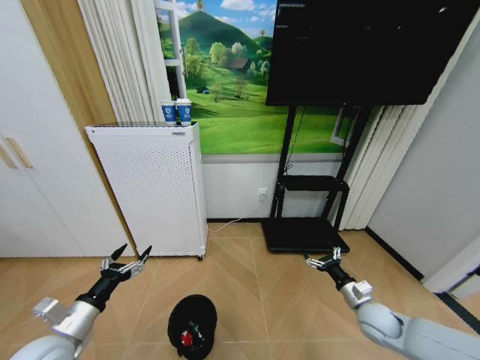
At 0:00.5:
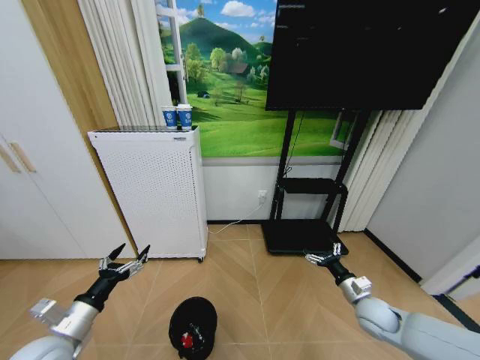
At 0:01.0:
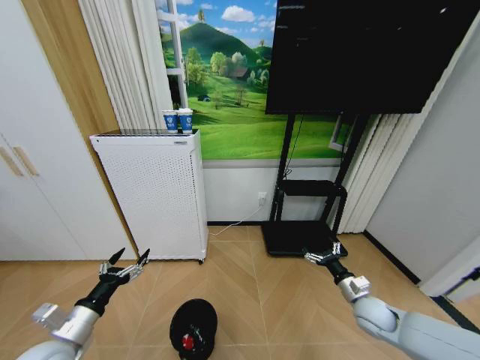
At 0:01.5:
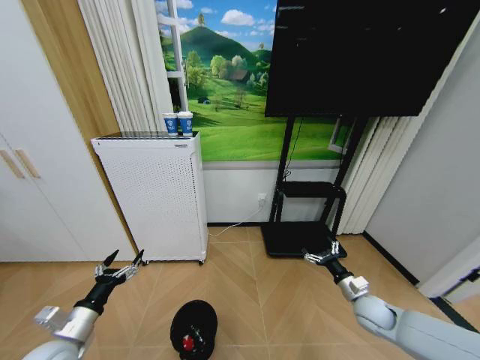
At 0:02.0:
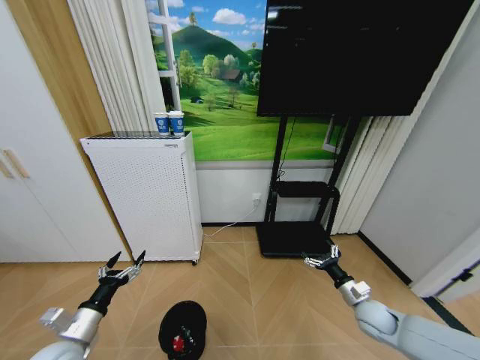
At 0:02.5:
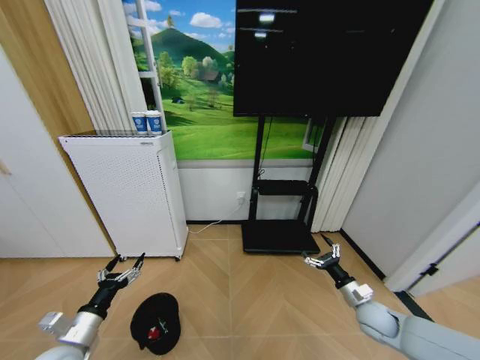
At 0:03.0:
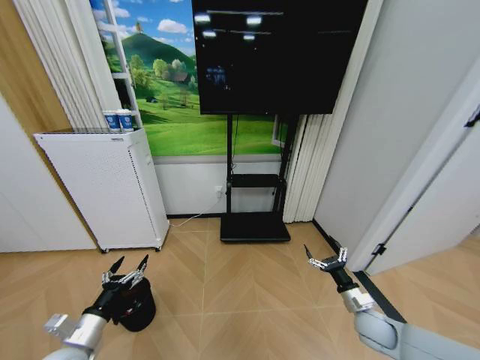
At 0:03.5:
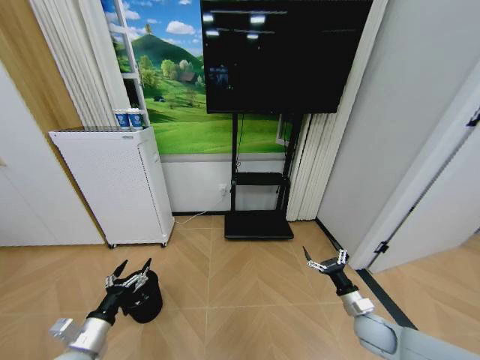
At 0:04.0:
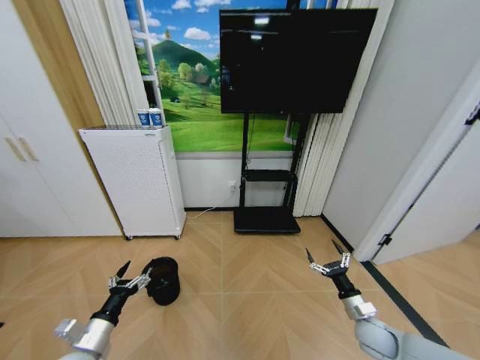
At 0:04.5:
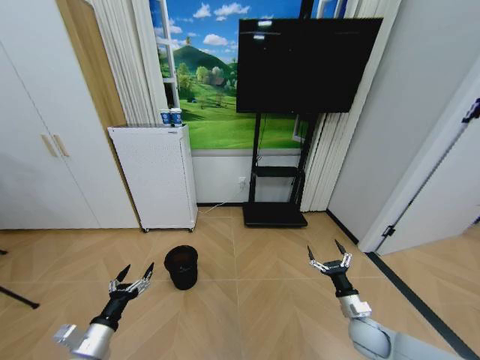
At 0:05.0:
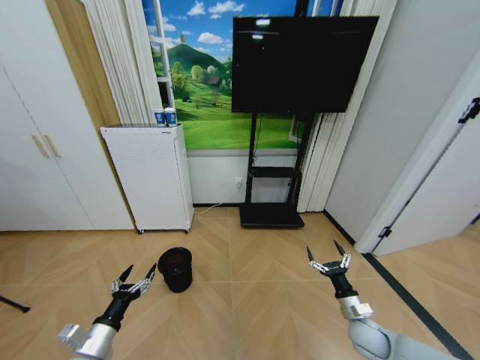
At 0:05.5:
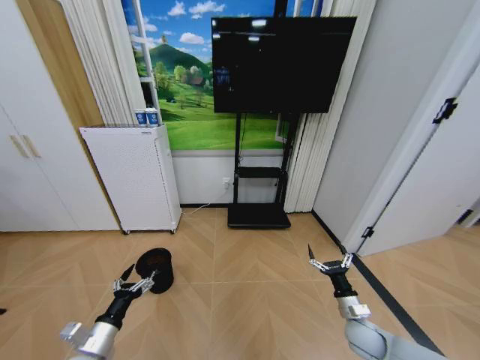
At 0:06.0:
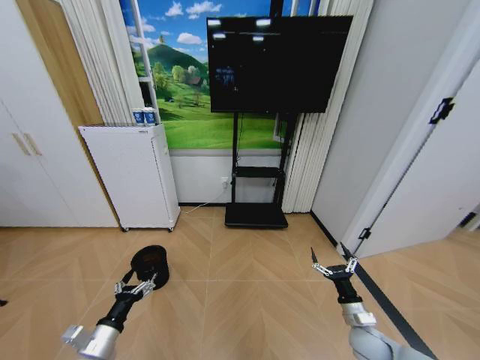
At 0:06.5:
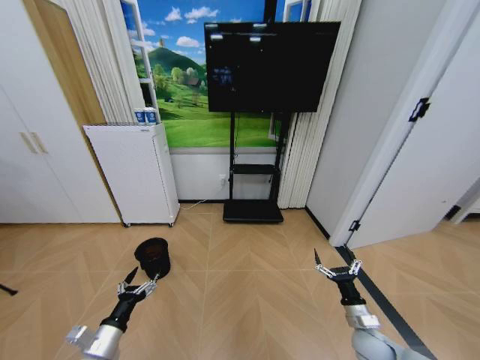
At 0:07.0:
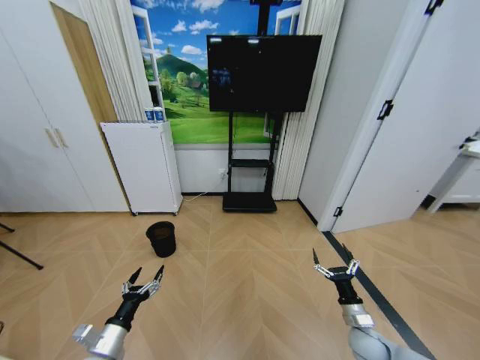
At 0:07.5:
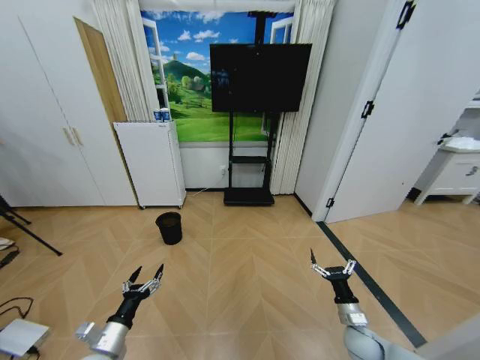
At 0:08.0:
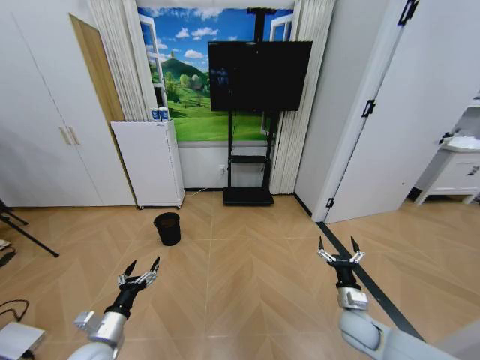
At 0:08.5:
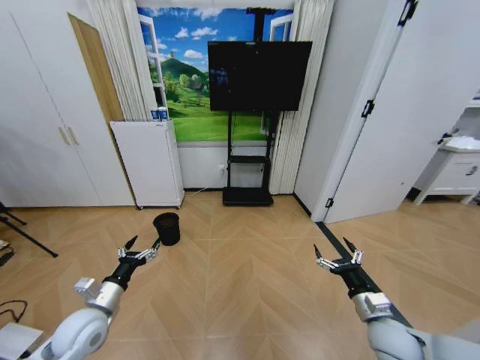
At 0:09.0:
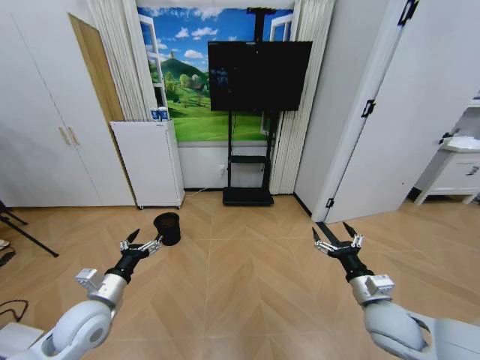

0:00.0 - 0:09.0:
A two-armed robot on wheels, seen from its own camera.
Task of the whole recording: Pick up the trash bin and place the garbage on the floor into it.
0:02.0 - 0:04.5: The right gripper ends up approximately 5 cm from where it was.
0:07.0 - 0:09.0: The left gripper goes approximately 15 cm upward and forward; the right gripper moves upward, about 15 cm.

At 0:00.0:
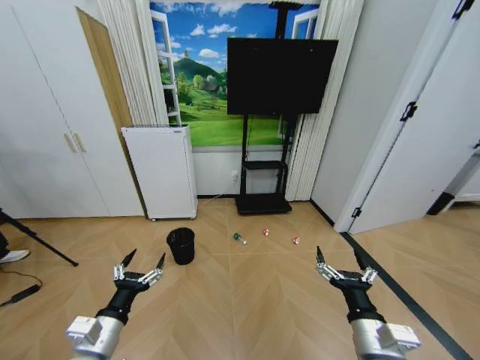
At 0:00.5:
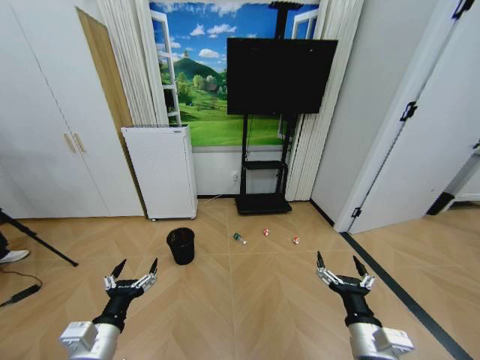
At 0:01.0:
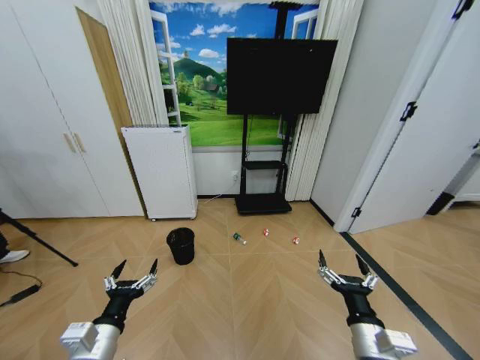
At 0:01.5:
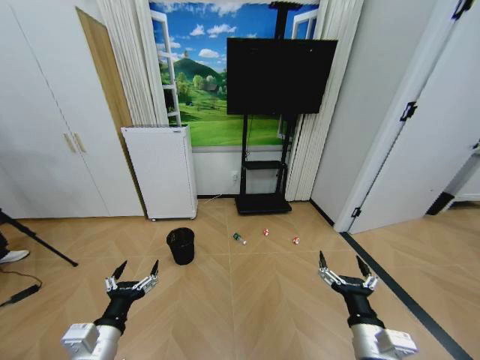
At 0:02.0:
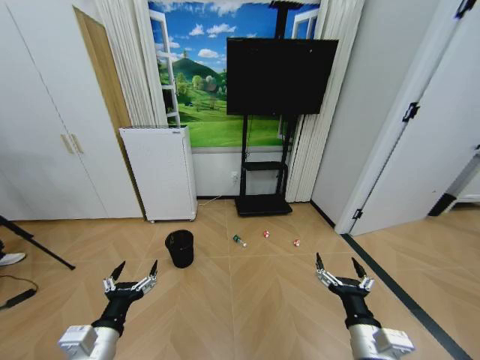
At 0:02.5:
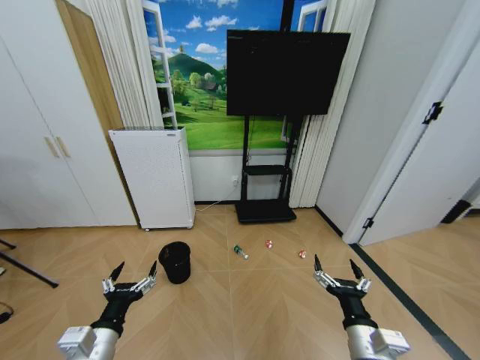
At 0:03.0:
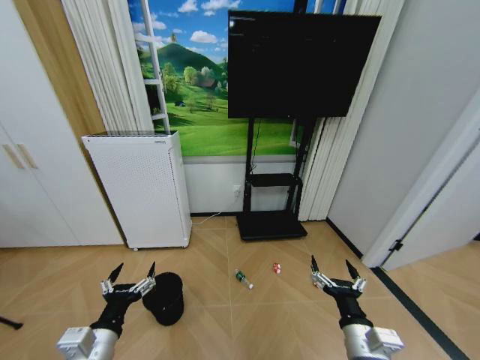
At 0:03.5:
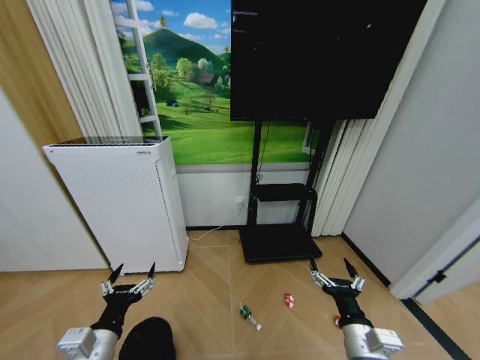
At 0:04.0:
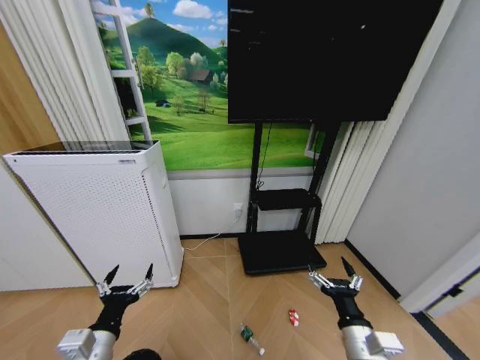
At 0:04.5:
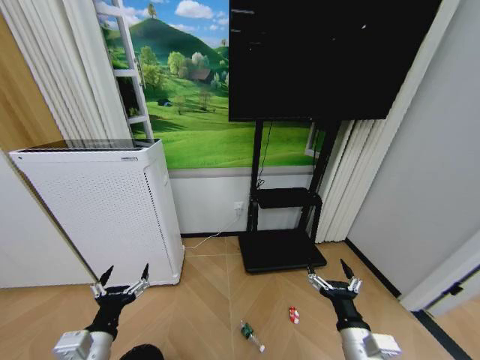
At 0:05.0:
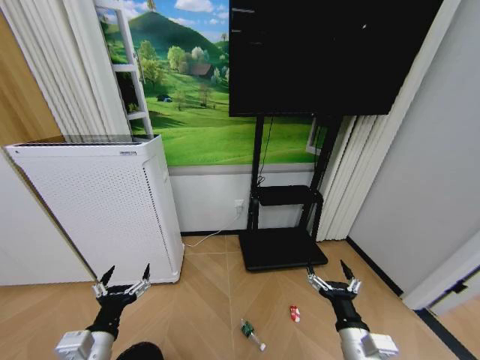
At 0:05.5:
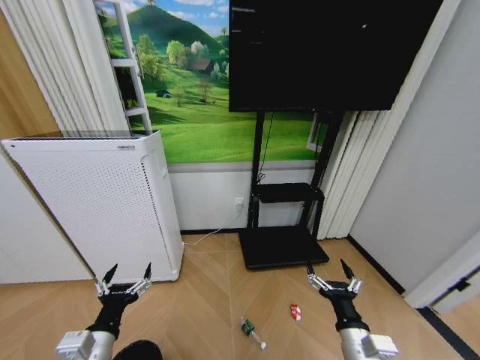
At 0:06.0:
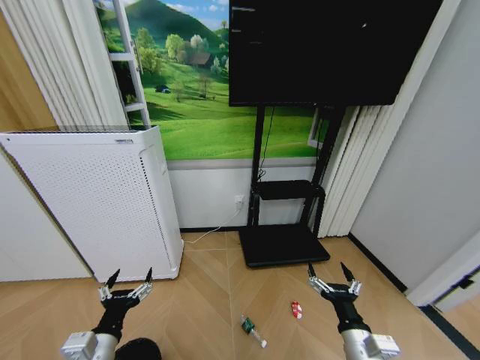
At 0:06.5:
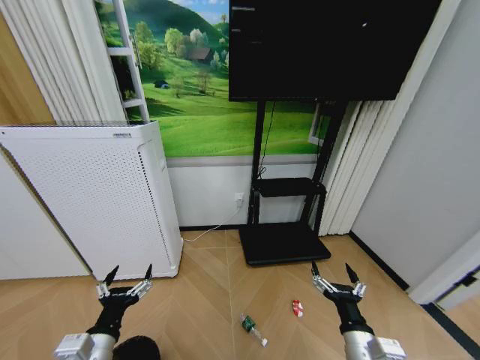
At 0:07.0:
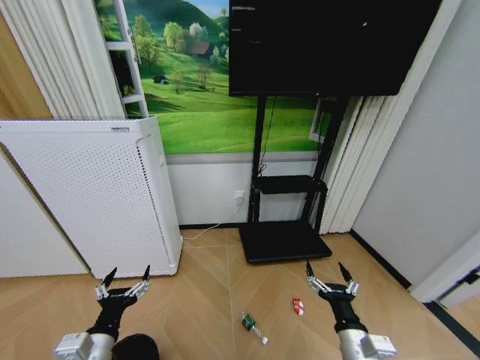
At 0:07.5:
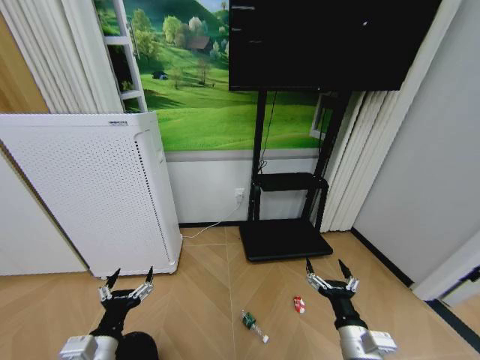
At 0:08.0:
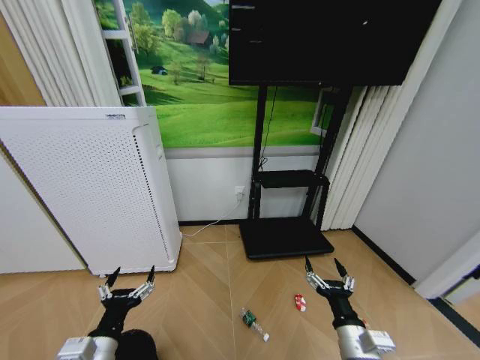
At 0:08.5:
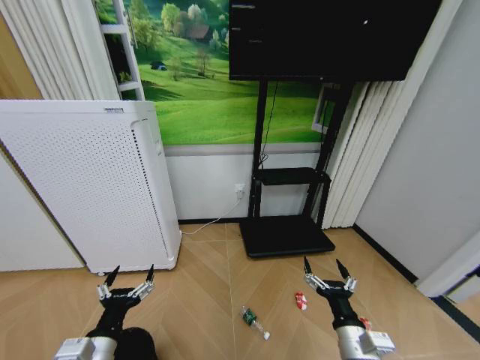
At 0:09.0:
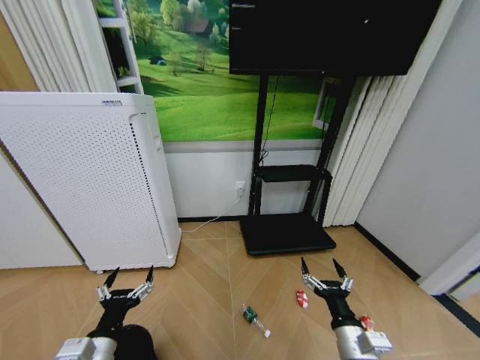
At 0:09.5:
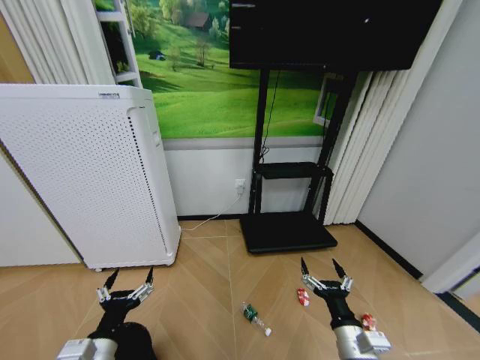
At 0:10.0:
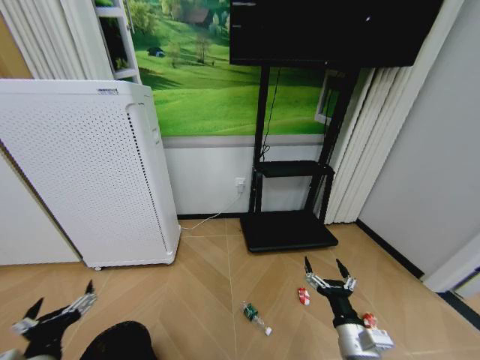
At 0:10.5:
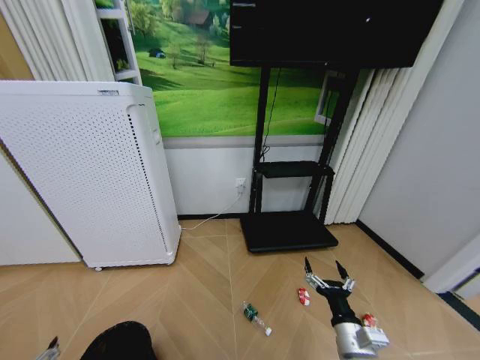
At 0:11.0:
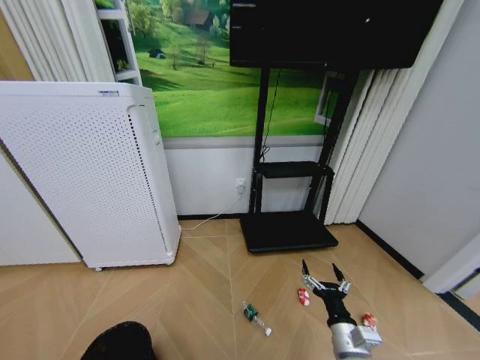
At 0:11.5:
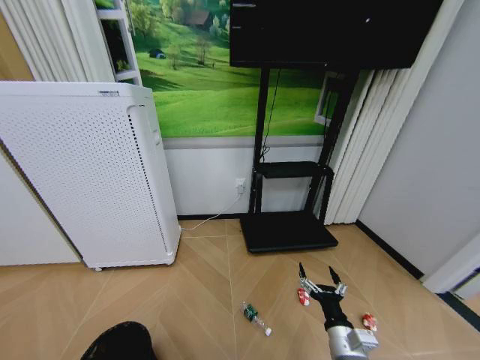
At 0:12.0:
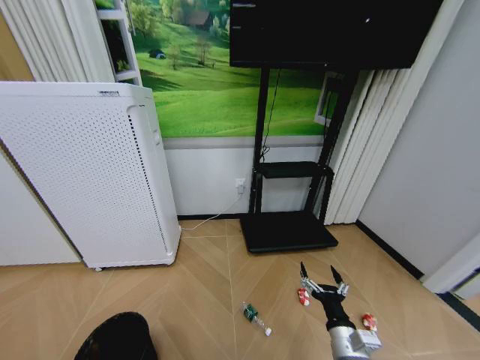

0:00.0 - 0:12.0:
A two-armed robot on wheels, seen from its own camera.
Task of the whole recording: Pick up the trash bin and place the garbage on the floor into it.
0:08.0 - 0:10.0: The left gripper ends up some 5 cm from where it was.
0:10.0 - 0:12.0: The left gripper shifts about 20 cm downward and to the left, and closes its fingers.

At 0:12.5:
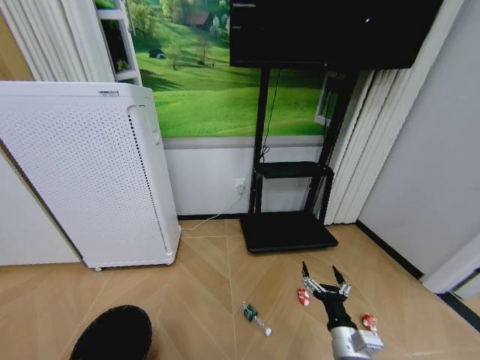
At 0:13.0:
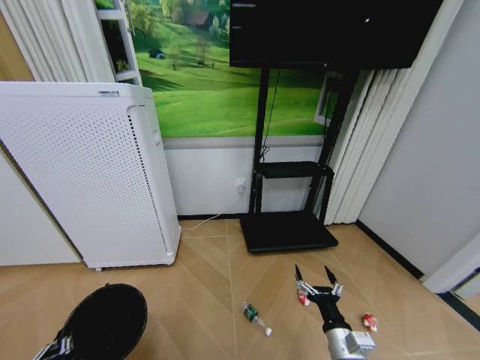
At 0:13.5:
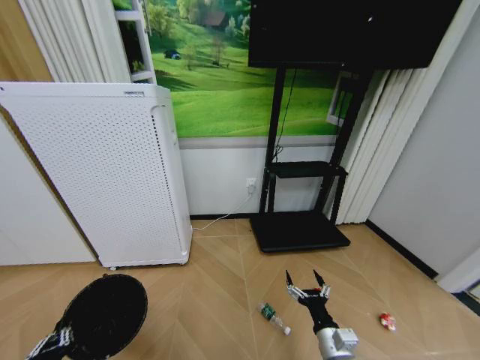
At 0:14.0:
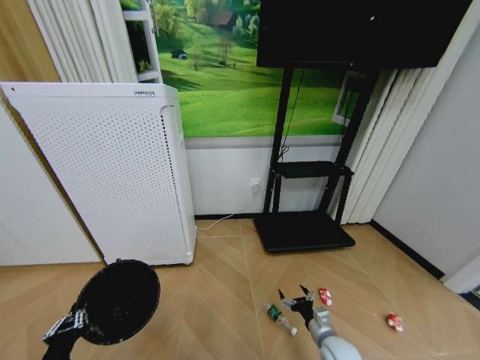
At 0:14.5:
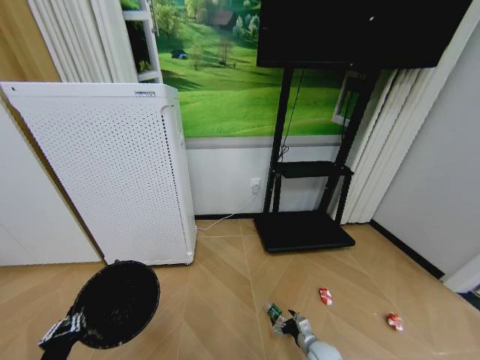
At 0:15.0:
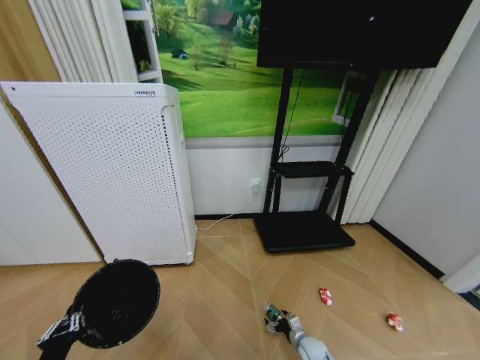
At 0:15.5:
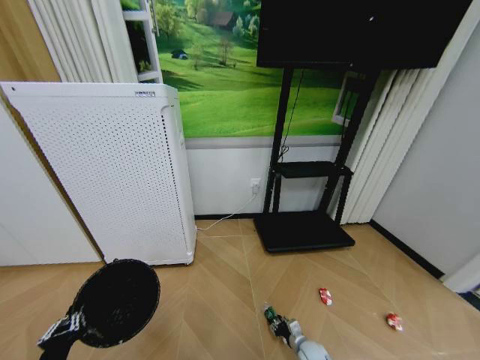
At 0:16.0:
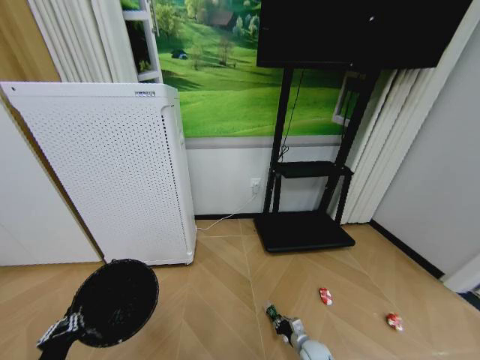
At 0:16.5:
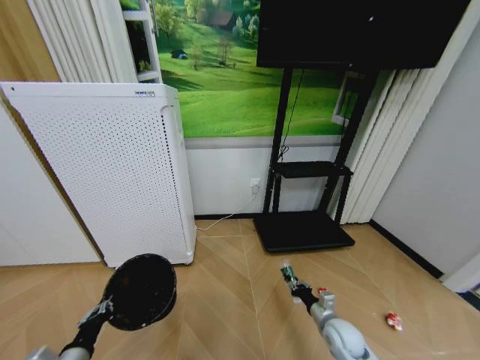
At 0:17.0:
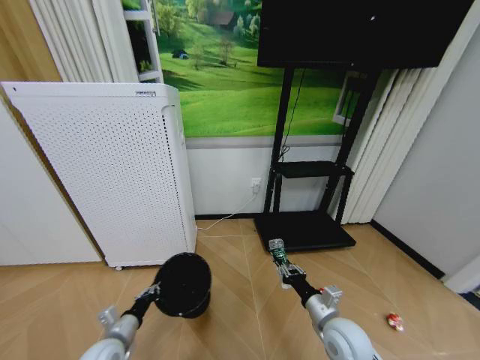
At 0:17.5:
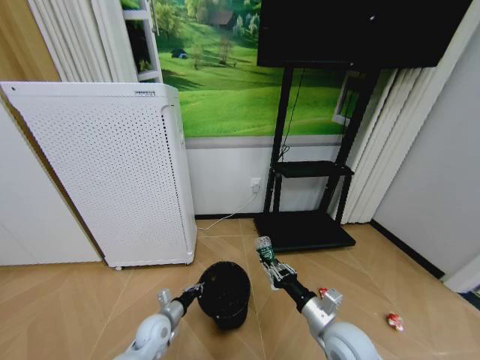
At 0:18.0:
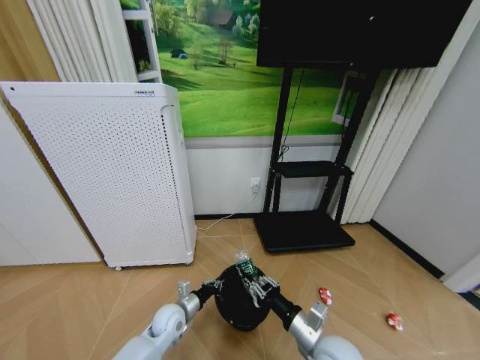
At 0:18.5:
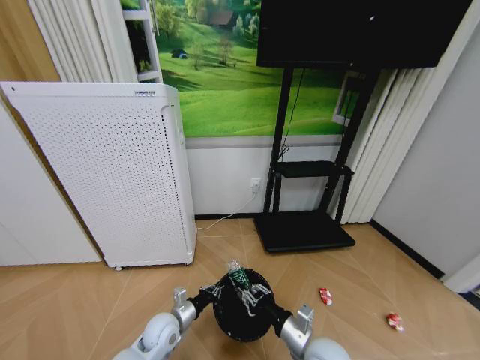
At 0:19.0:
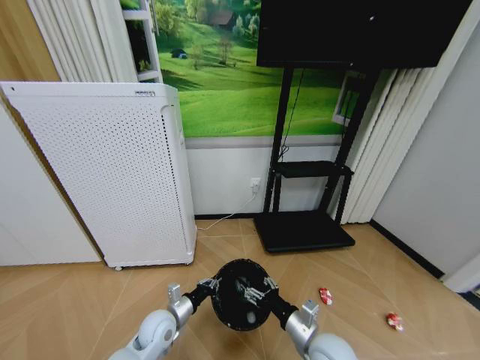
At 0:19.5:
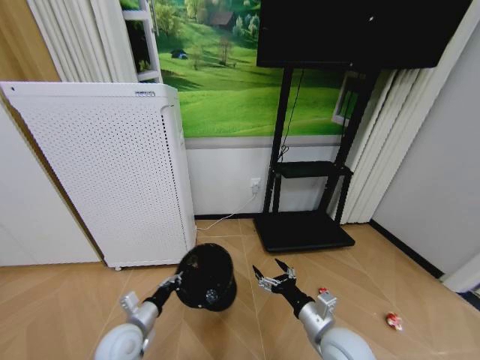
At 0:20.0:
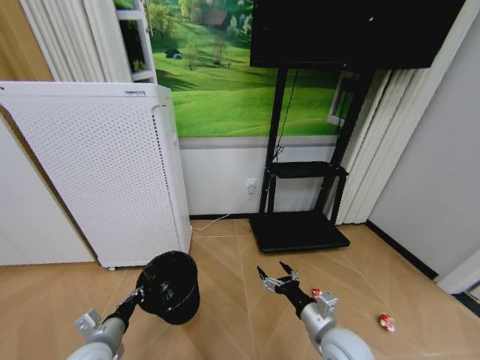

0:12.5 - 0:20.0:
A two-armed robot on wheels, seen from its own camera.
Task of the whole recording: Pick up the trash bin and place the garbage on the floor into it.
0:12.5 - 0:14.5: The right gripper travels downward by about 20 cm. The left gripper is displaced upward by about 5 cm.
0:14.5 - 0:16.5: The right gripper is displaced upward by roughly 10 cm, and closes its fingers.
0:16.5 - 0:18.0: The left gripper goes roughly 25 cm forward, to the right and downward, while the right gripper is displaced upward, to the left and backward by about 20 cm.
0:18.0 - 0:20.0: The left gripper shifts roughly 20 cm to the left, backward and upward. Meanwhile the right gripper opens up.
